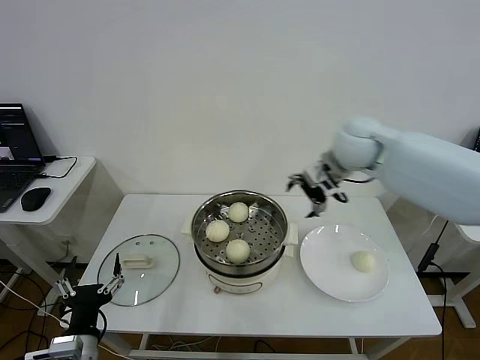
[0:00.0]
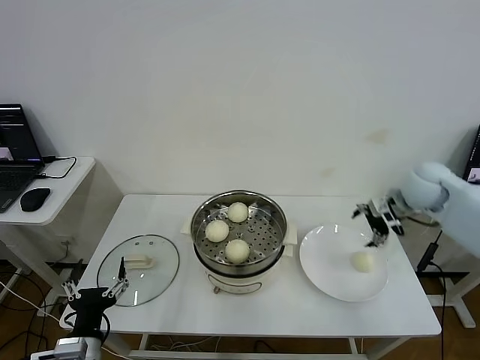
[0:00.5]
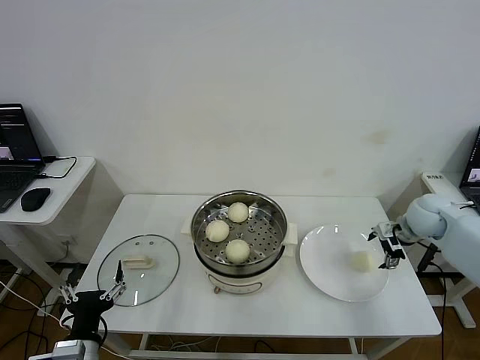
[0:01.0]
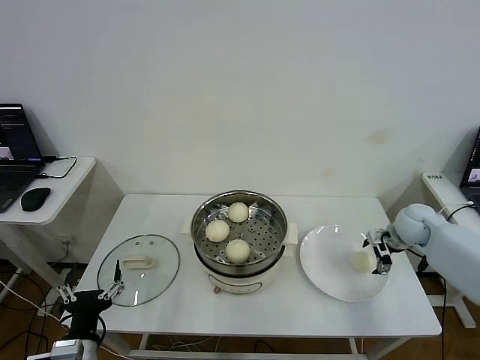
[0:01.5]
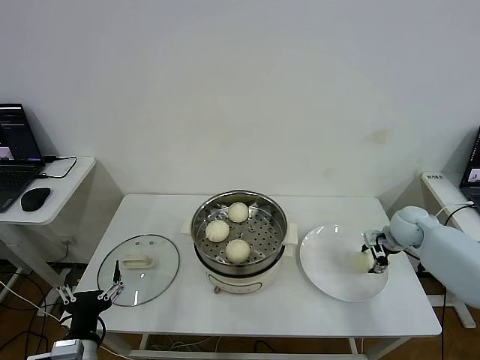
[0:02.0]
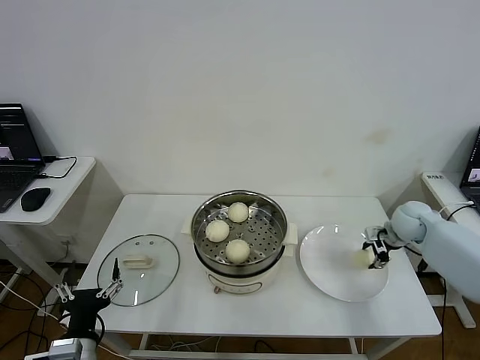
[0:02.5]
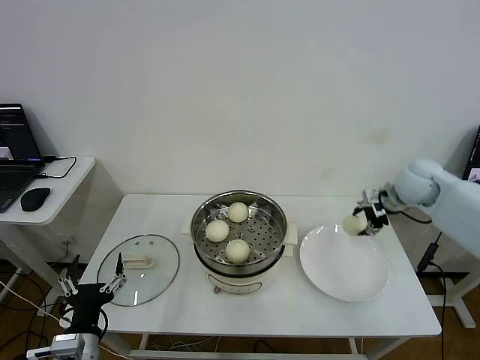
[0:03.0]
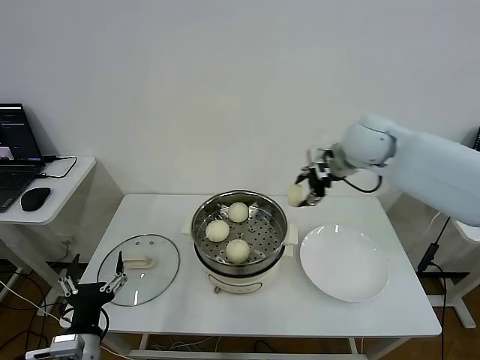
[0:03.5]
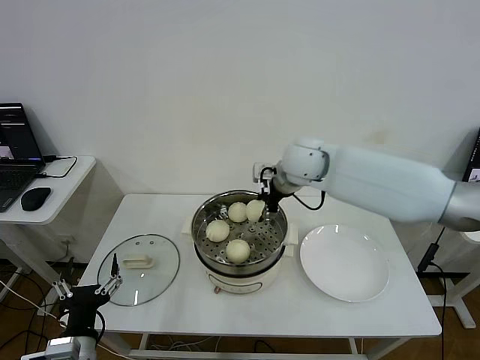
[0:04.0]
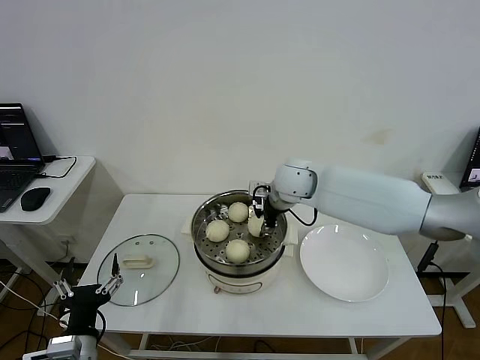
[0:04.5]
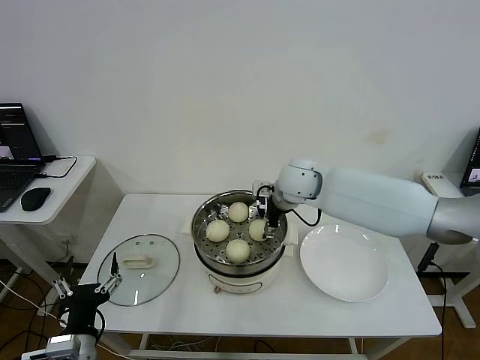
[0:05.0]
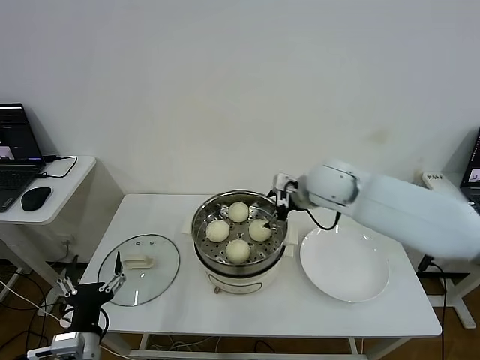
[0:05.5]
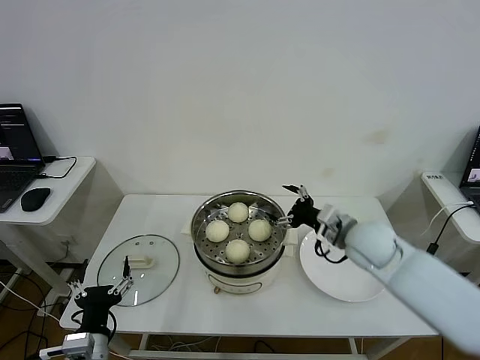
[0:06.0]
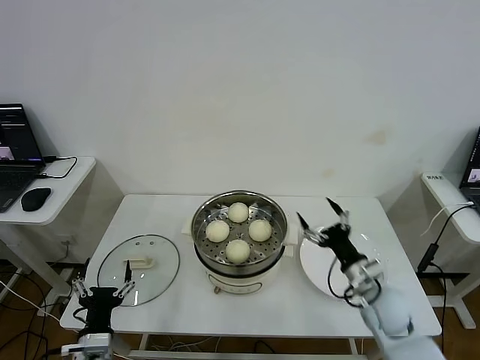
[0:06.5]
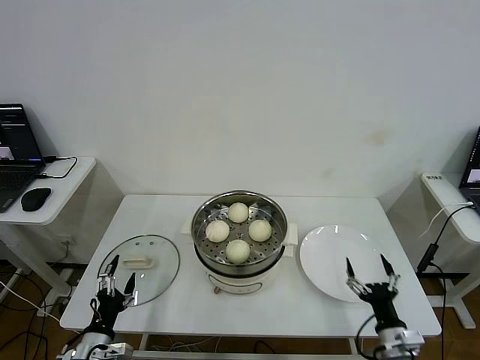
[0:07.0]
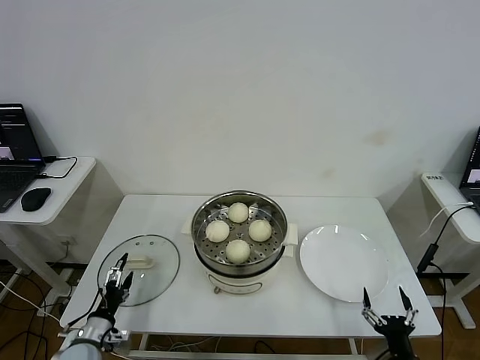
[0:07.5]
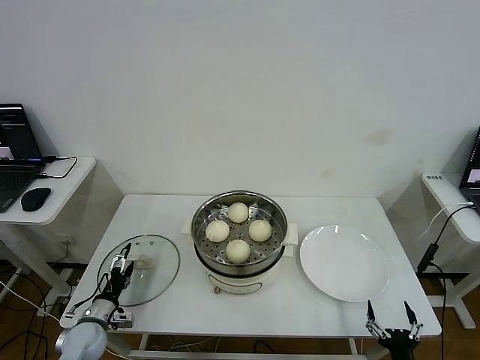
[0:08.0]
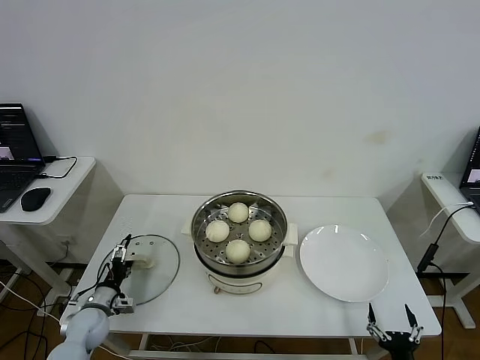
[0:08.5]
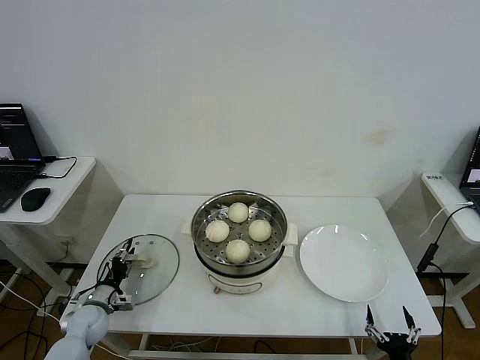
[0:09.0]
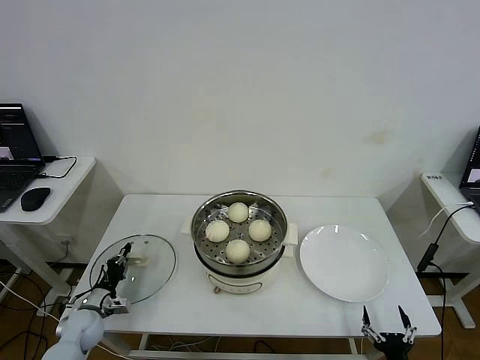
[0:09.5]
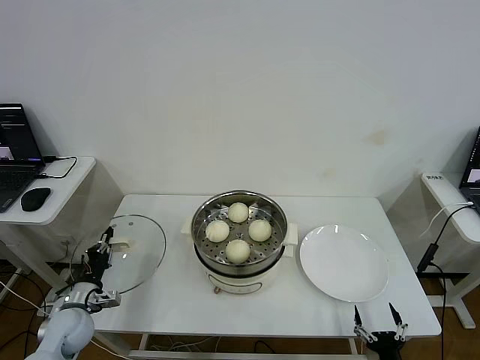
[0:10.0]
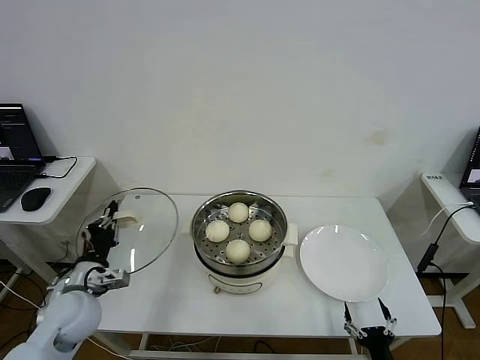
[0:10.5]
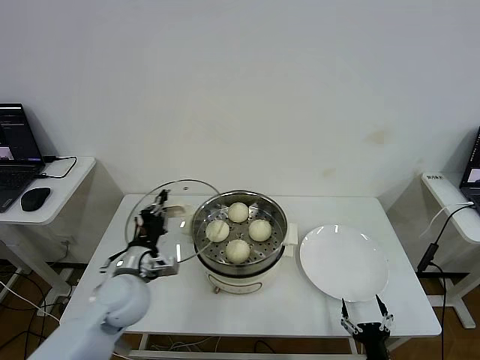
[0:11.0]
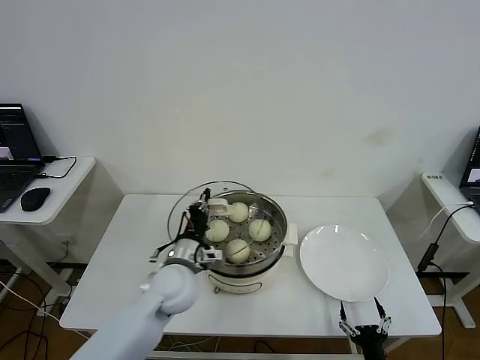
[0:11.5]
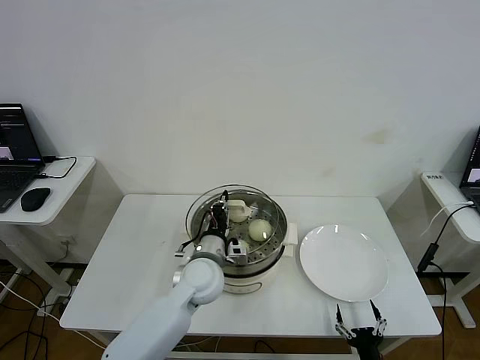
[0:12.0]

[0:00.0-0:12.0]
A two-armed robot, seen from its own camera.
Step, 0:00.0 to 0:02.0: Grasp the baozi in the plate with right gripper.
Step, 0:02.5 to 0:04.5: Place the baozi on the steamer with right gripper.
Step, 0:05.0 to 0:09.0: Grasp the pot lid with left gripper.
0:00.0 to 0:02.0: The right gripper is displaced downward and to the right by about 30 cm, and closes up.
0:02.0 to 0:04.0: The right gripper moves to the left and upward, some 35 cm.
0:04.0 to 0:06.0: The right gripper heads to the right, backward and downward, covering roughly 20 cm, and opens.
0:06.0 to 0:08.0: The left gripper shifts roughly 20 cm downward, forward and to the left. The right gripper is displaced backward and downward by about 40 cm.
0:08.0 to 0:10.0: The left gripper shifts some 5 cm upward, and closes.
0:10.0 to 0:12.0: The left gripper is displaced to the right by about 30 cm.

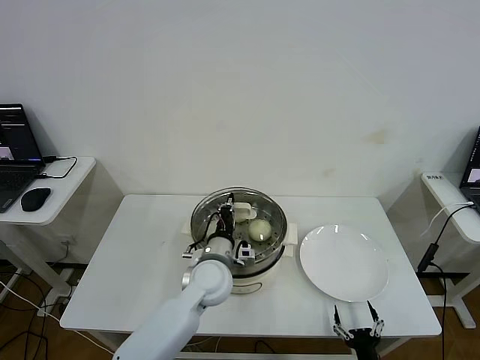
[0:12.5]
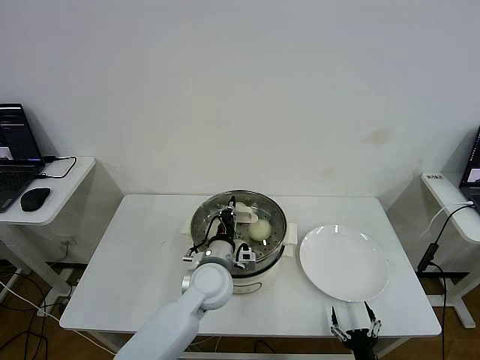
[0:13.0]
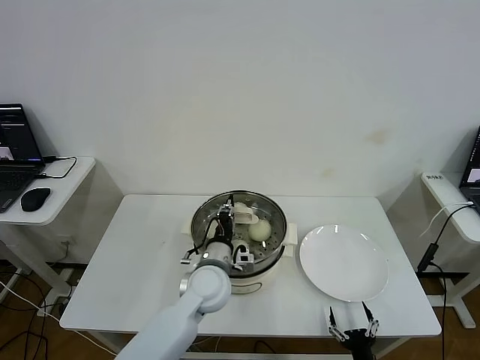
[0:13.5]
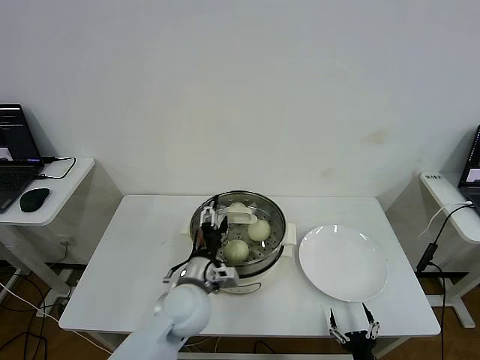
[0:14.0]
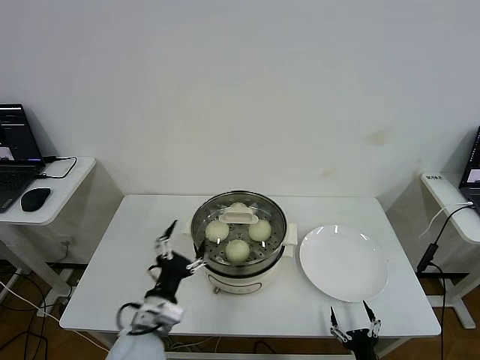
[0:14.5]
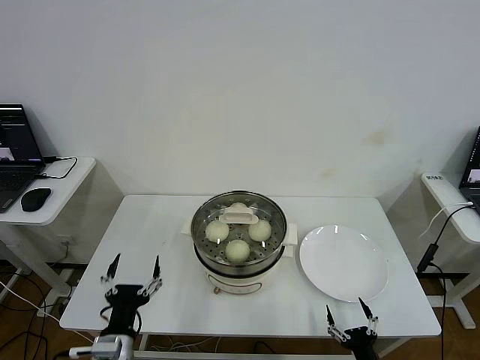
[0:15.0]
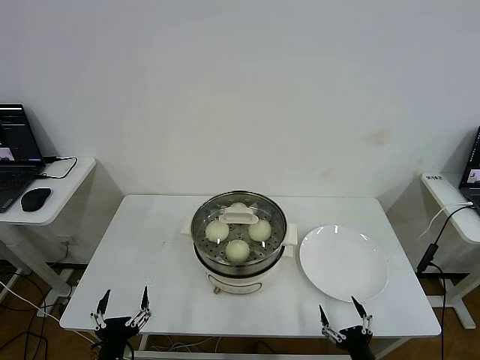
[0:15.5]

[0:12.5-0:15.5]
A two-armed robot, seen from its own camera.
0:12.5 to 0:14.0: The left gripper moves backward, some 5 cm, and opens its fingers.
0:14.0 to 0:15.5: The left gripper moves backward and to the left, approximately 25 cm. The right gripper travels upward by some 5 cm.
